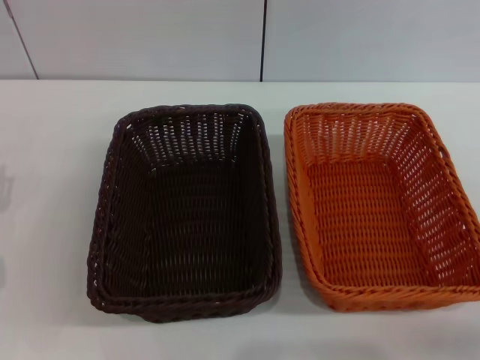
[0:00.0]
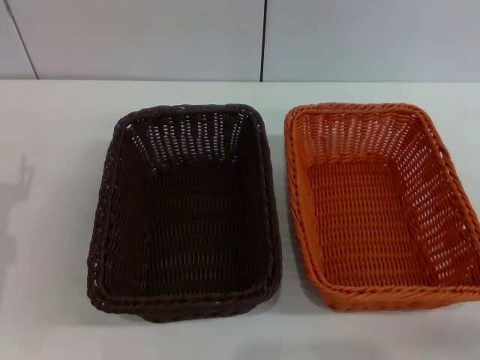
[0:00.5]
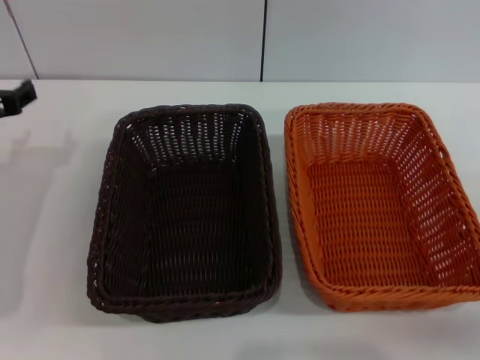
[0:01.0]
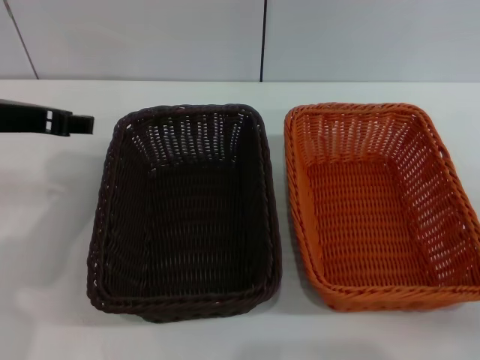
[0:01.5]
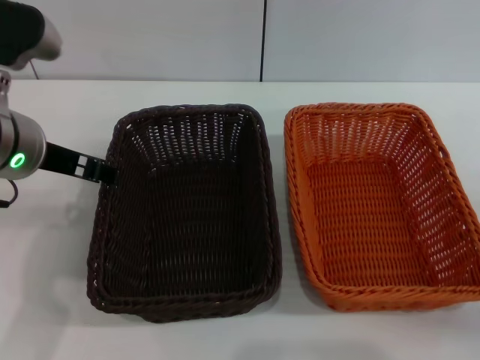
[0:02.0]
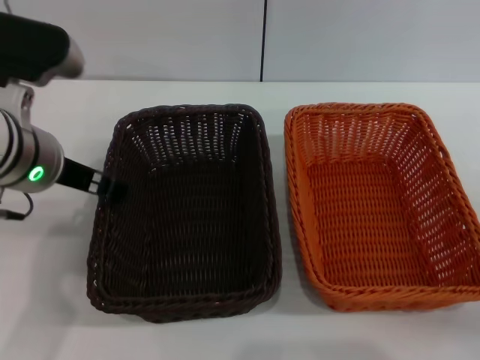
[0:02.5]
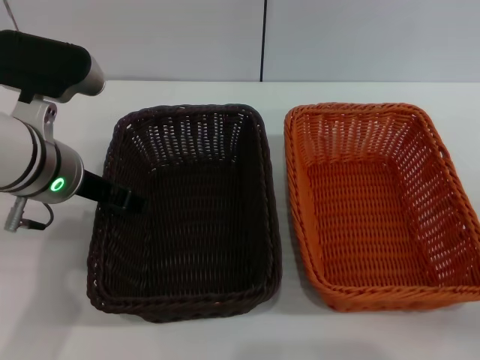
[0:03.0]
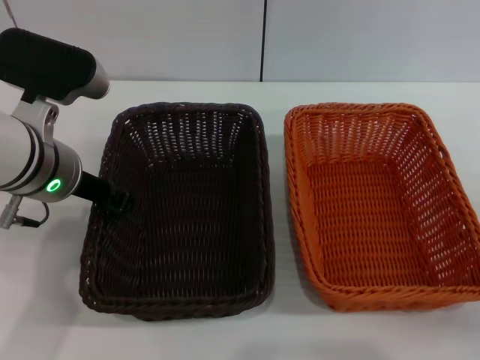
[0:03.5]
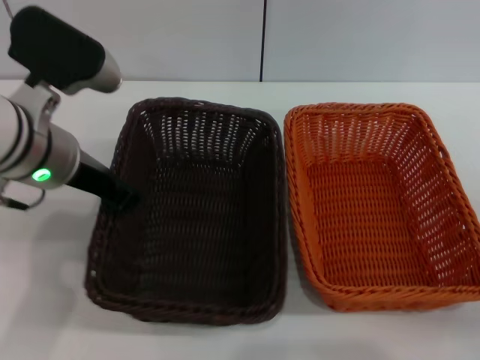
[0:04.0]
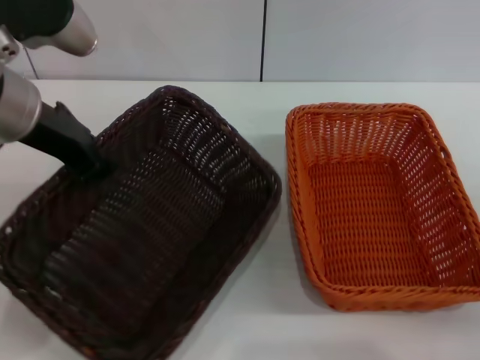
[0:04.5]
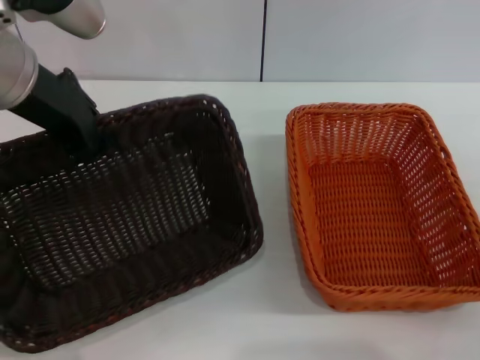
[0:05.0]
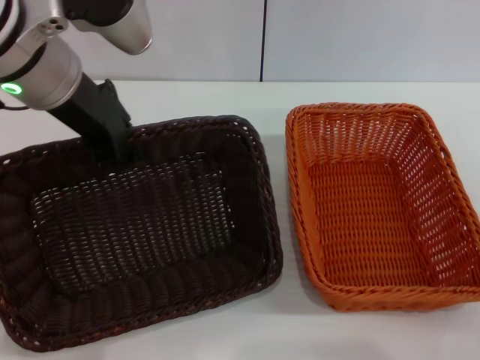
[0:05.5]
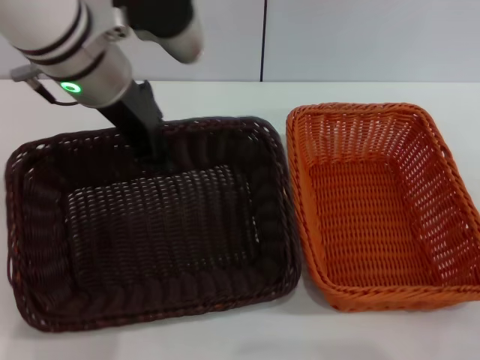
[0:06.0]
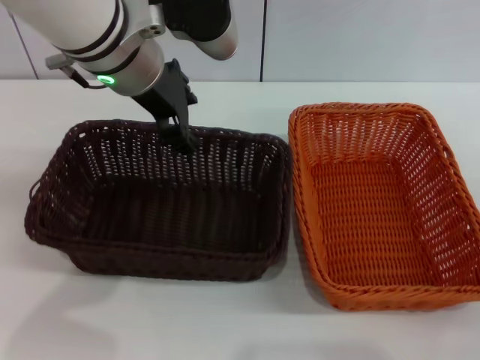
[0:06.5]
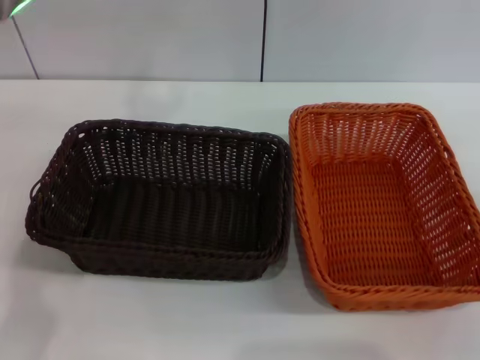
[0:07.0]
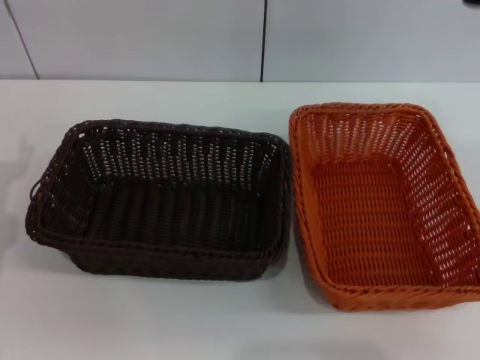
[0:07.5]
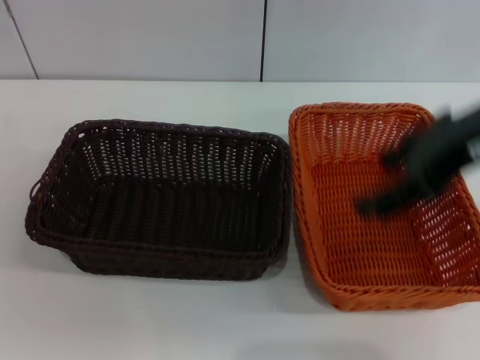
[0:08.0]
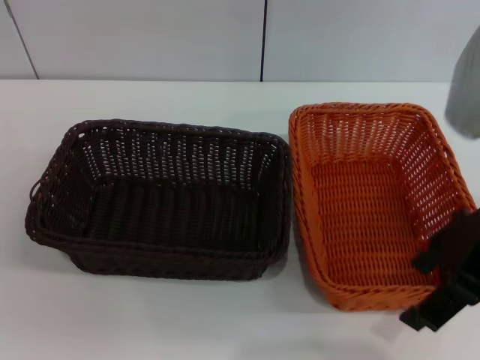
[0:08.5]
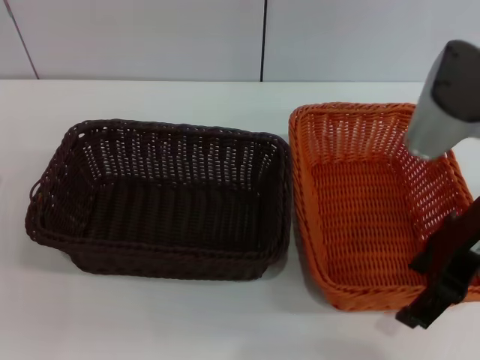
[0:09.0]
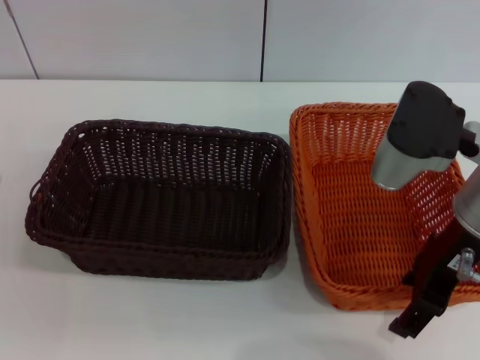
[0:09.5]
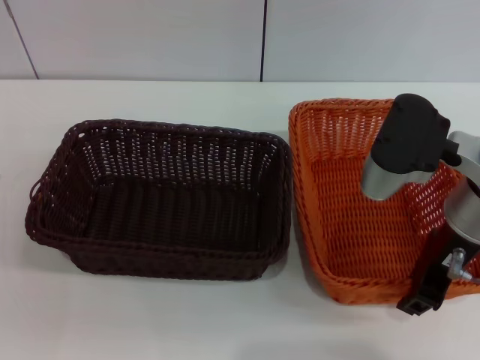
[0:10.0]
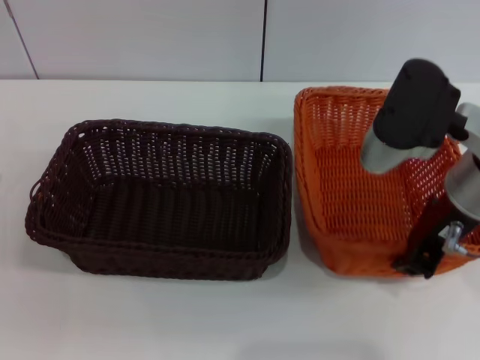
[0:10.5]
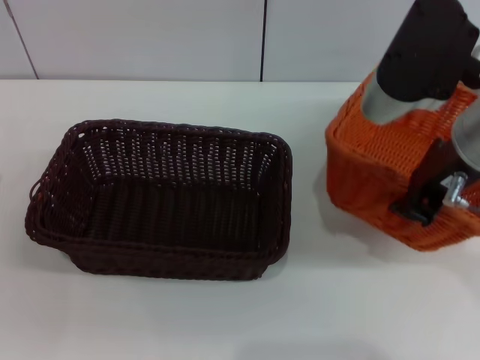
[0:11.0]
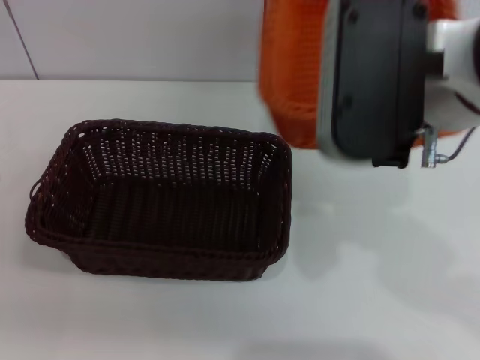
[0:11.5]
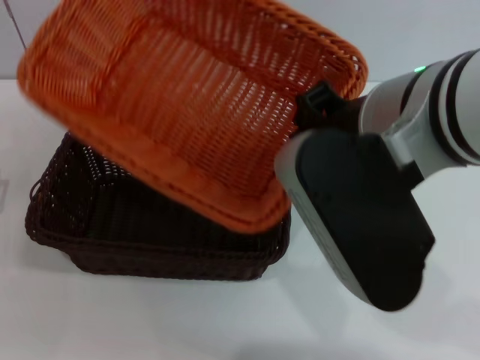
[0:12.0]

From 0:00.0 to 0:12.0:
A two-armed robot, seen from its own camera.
Step, from 0:00.0 to 0:04.0: Pick up the dark basket with the left gripper.
Step, from 0:04.5 to 0:06.5: Place the dark basket in the center of view with the left gripper.
Step, from 0:07.0 to 0:10.0: Pick up the light basket with the right gripper.
From 0:00.0 to 0:02.0: The left gripper moves upward and to the right, roughly 20 cm.
From 0:02.0 to 0:04.0: The left gripper closes up.
From 0:04.0 to 0:06.0: The left gripper moves upward, about 5 cm.
From 0:06.0 to 0:08.0: The right gripper goes about 25 cm upward and to the left; the left gripper moves to the left, downward and backward, some 30 cm, and opens up.
From 0:08.0 to 0:10.0: The right gripper travels downward by roughly 10 cm, and closes up.
From 0:10.0 to 0:12.0: The right gripper travels upward, to the left and backward by roughly 15 cm, and closes up.

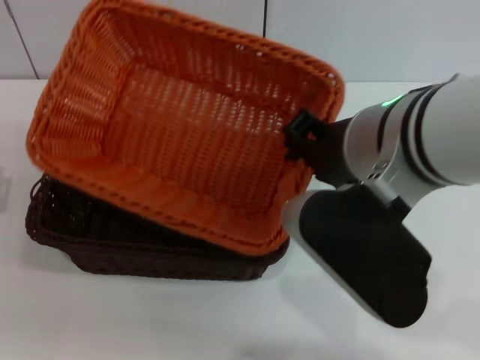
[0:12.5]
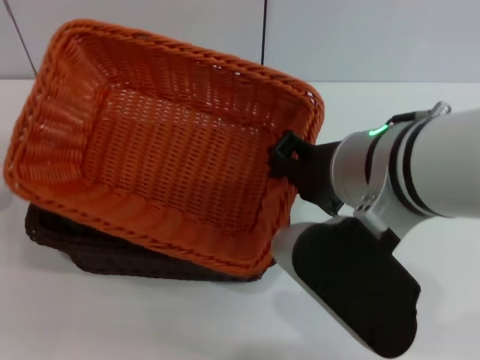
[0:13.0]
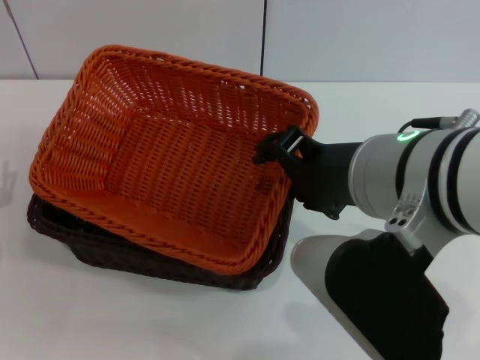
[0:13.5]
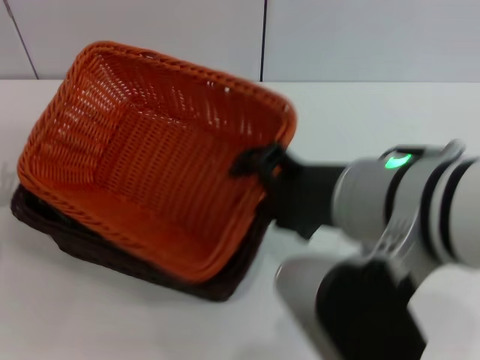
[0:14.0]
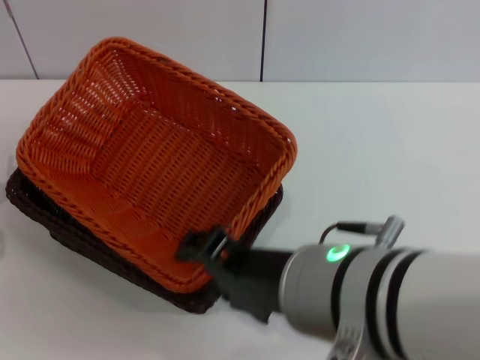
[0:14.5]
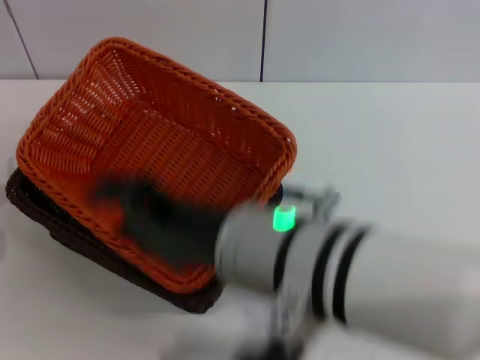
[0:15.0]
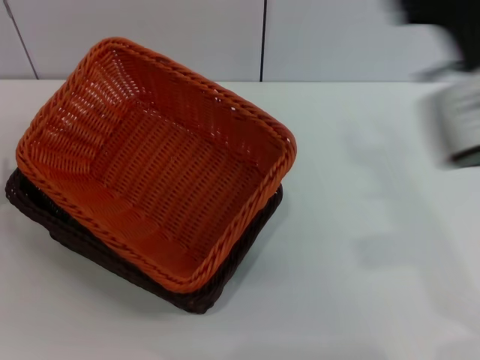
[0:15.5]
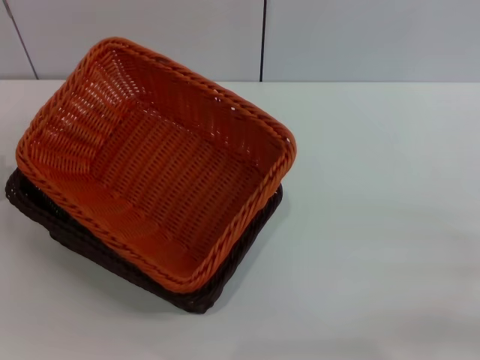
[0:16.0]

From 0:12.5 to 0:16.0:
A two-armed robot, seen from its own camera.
Step, from 0:12.5 to 0:14.5: Place the light basket on the dark basket with the right gripper.
From 0:12.5 to 0:14.5: The right gripper goes some 10 cm backward, and opens up.
From 0:14.5 to 0:16.0: The right gripper moves to the right and downward, about 30 cm.
